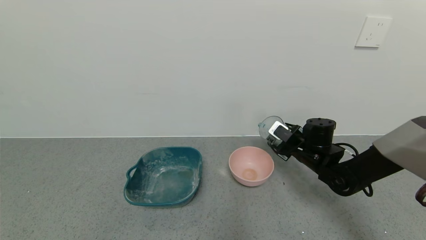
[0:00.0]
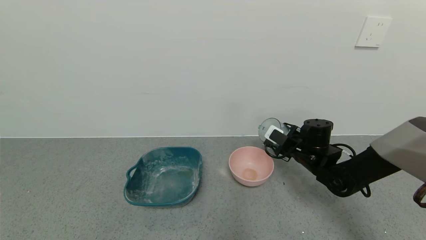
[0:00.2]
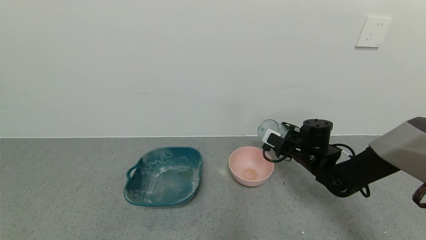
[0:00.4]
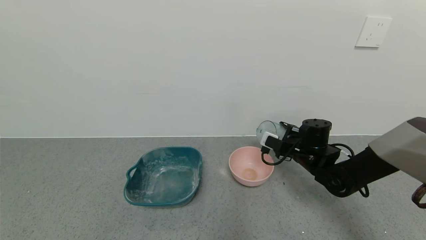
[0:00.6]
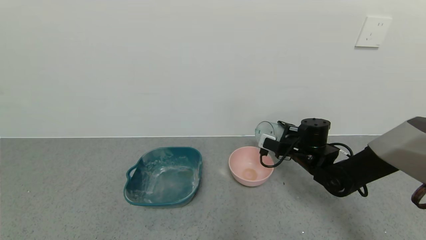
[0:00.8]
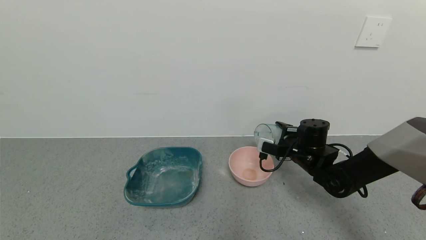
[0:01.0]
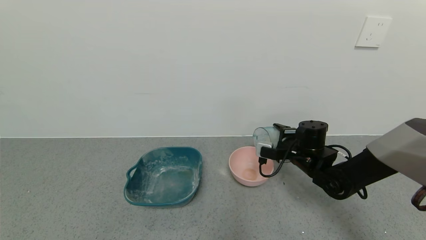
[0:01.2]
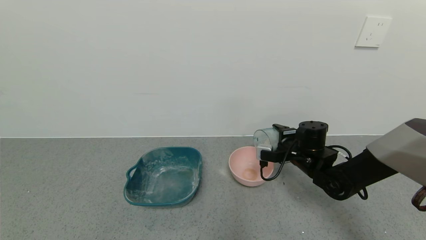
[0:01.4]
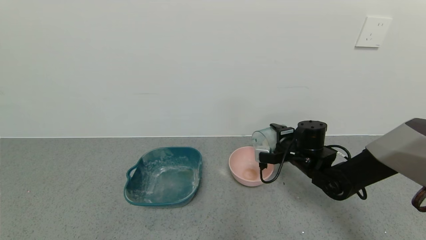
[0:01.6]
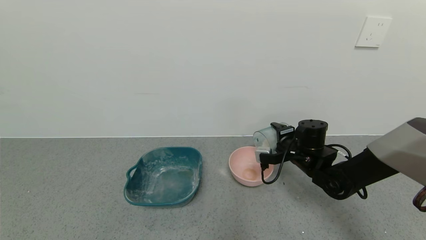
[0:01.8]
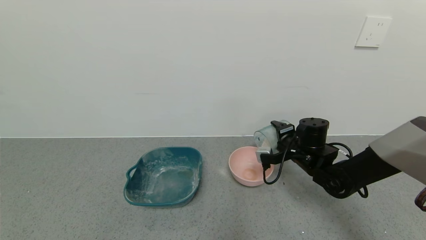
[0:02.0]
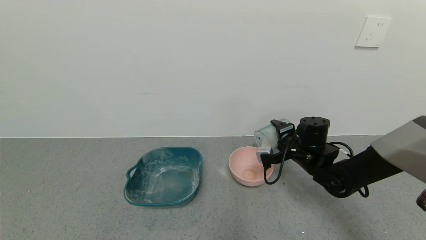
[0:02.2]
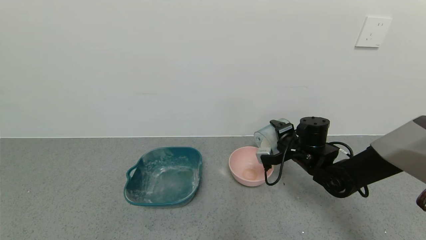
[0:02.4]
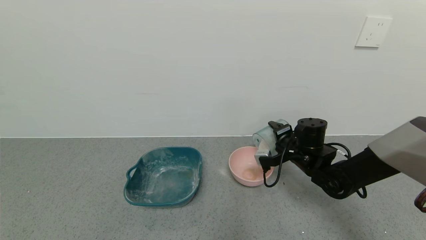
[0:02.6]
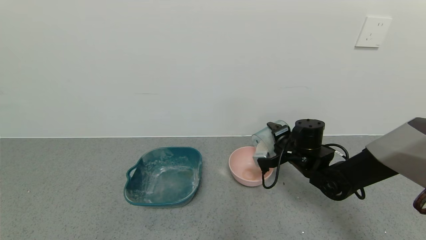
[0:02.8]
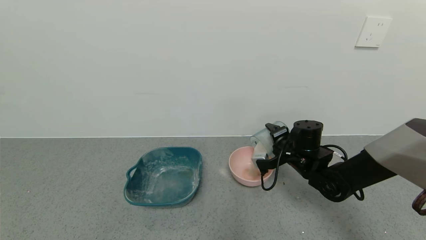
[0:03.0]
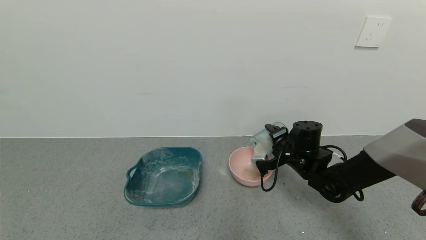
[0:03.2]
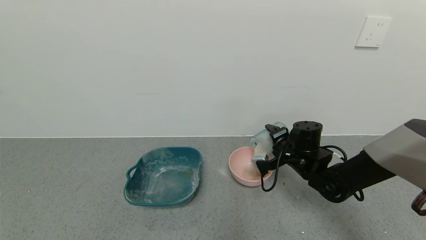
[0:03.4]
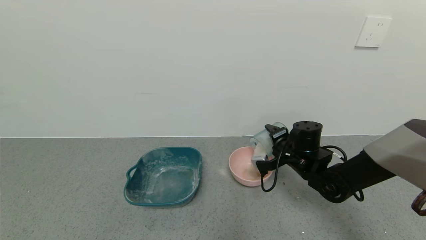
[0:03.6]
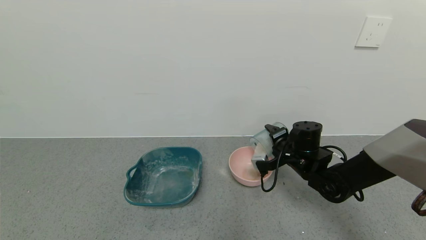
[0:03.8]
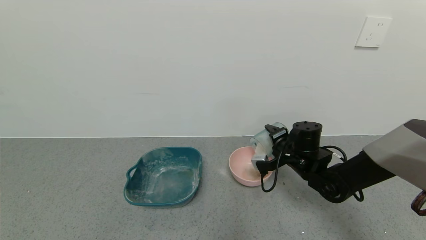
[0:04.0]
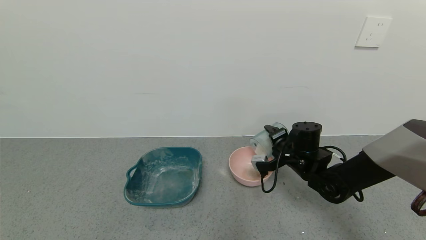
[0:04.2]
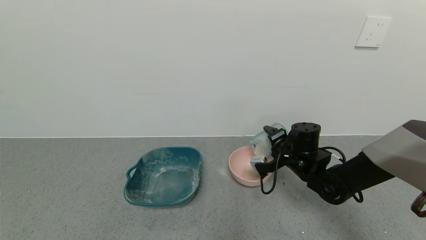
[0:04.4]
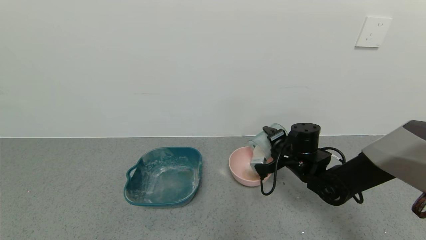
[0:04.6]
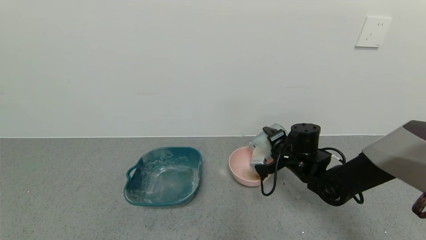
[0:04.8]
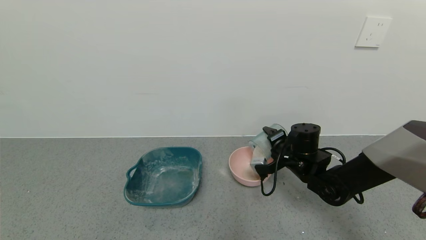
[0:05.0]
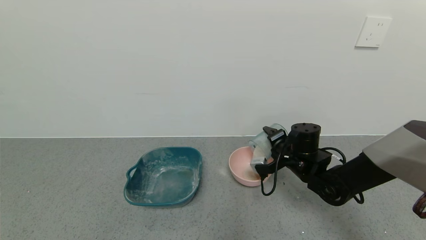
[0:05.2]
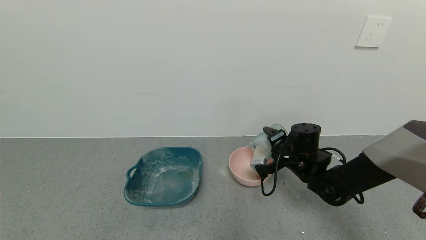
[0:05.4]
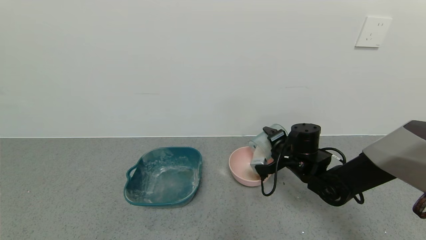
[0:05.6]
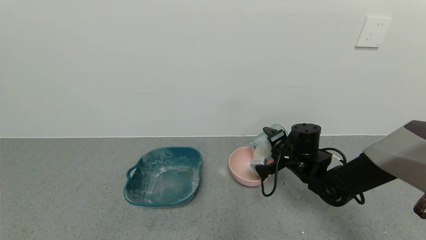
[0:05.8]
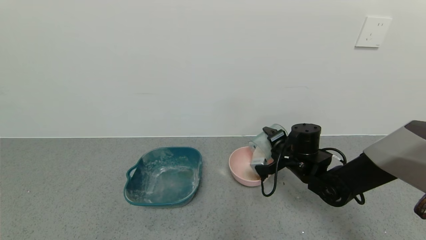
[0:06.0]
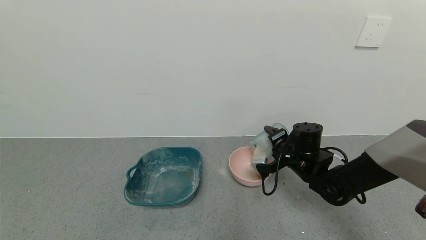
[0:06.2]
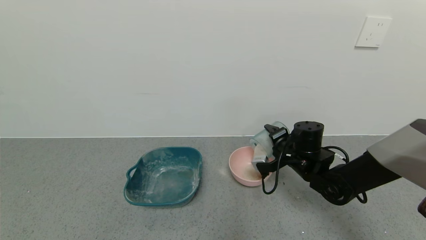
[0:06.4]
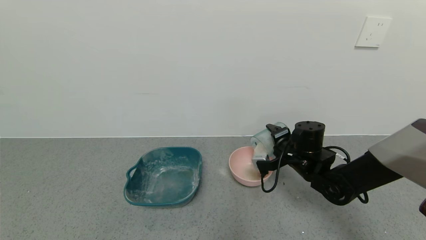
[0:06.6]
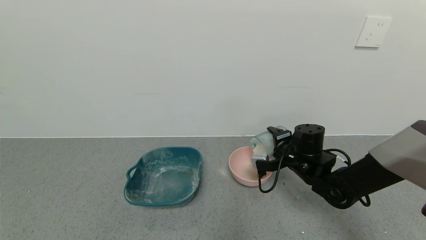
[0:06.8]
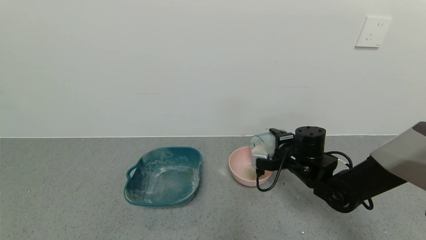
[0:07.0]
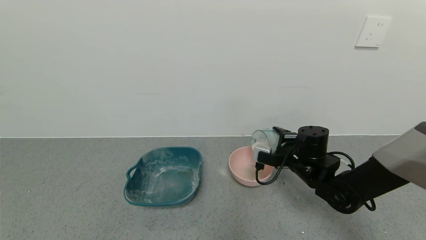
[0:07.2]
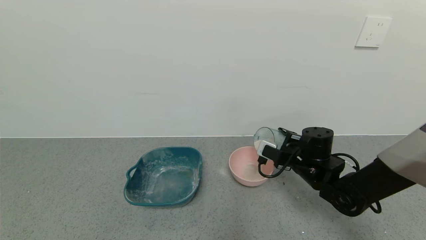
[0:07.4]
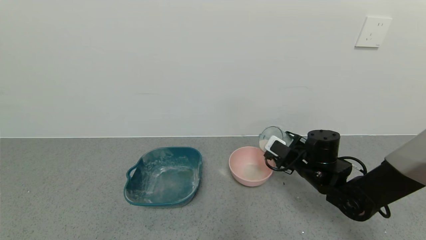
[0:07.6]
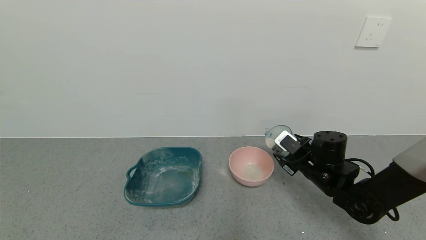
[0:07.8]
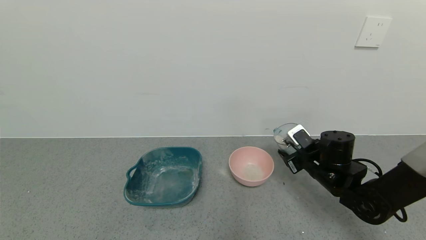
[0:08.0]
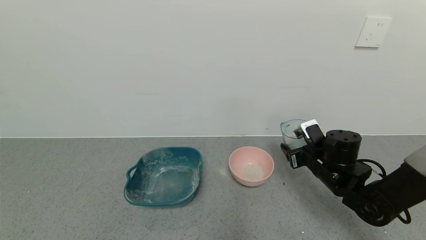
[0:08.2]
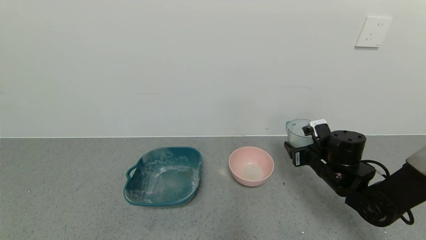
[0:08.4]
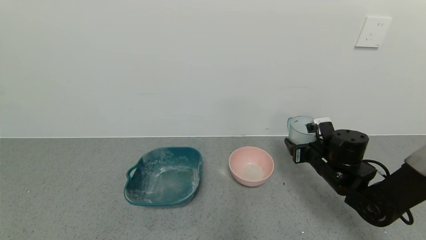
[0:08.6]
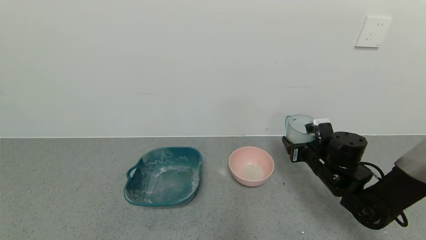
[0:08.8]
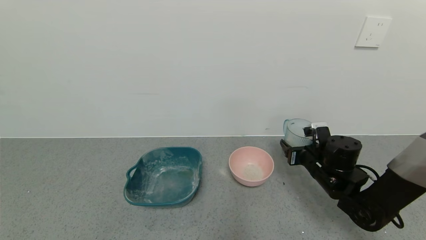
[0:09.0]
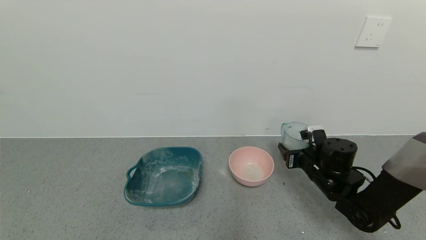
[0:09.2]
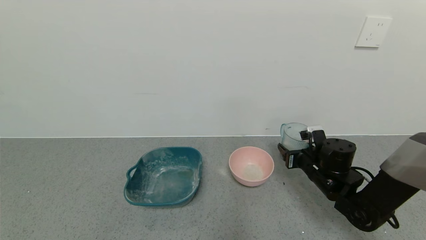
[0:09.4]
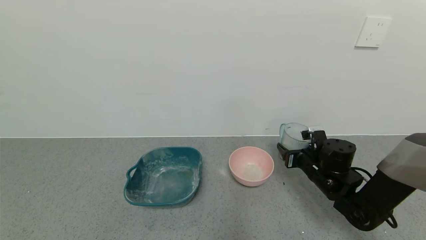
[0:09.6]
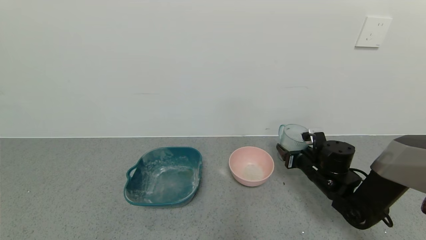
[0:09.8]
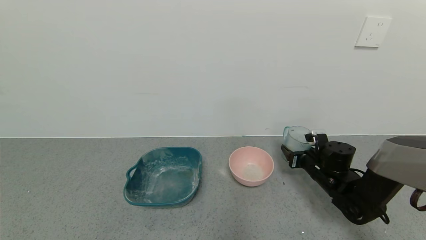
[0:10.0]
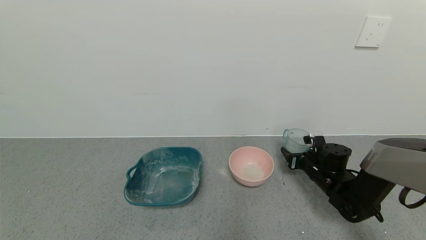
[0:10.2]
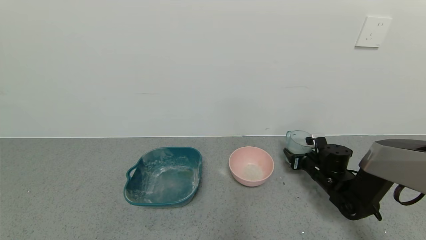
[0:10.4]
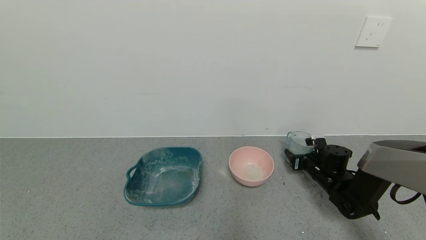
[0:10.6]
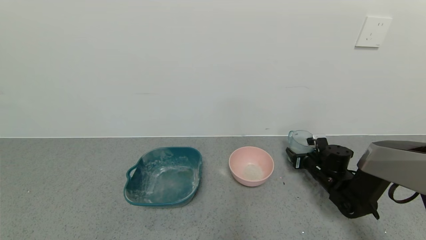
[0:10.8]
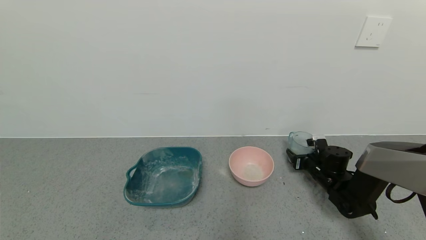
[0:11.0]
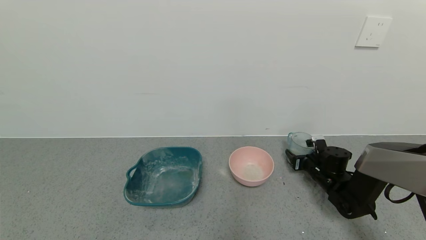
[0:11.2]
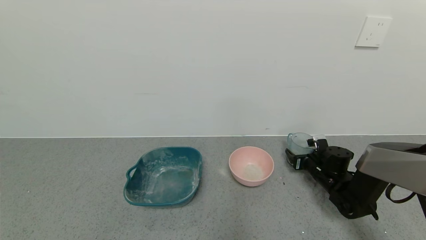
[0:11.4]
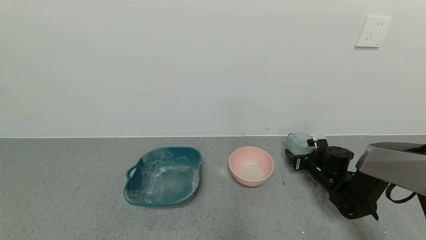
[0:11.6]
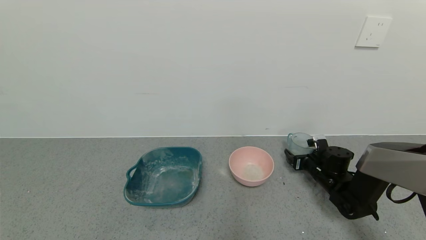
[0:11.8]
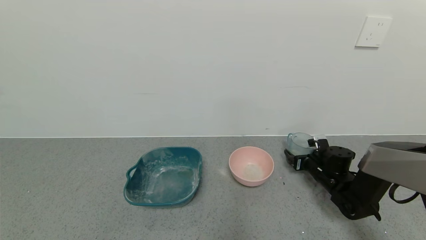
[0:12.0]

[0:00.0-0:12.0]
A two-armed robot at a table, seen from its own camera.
Task of the whole recording: use a gripper to pick up the cup and pour the powder into a bowl or tray.
Step, 0:00.0 to 0:06.6: Pour the powder into the pink bowl with the right gripper.
0:01.6 to 0:03.0: The grippers make only small movements.
0:03.0 to 0:06.0: Both grippers stay put.
0:09.0 to 0:10.4: The right gripper is displaced downward and forward by about 10 cm.
0:10.4 to 0:12.0: The right gripper opens up.

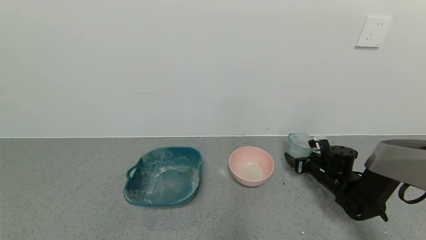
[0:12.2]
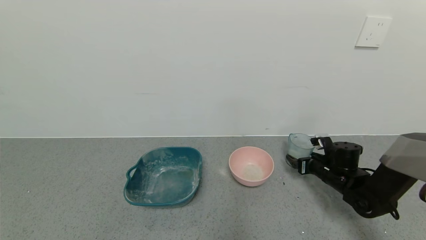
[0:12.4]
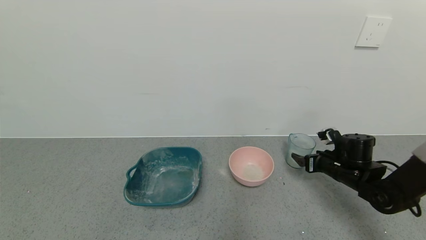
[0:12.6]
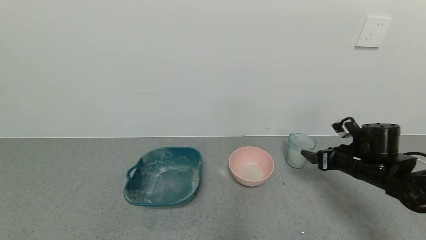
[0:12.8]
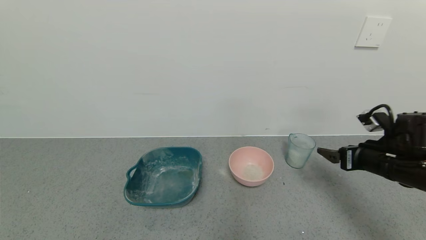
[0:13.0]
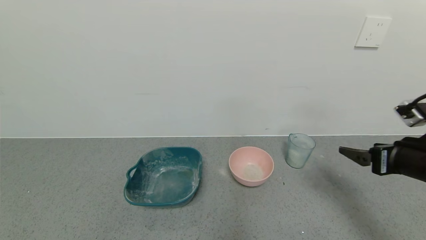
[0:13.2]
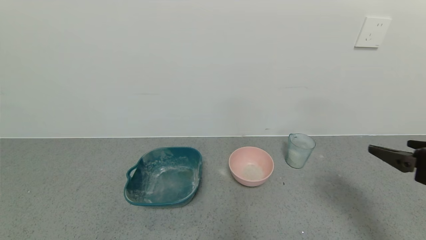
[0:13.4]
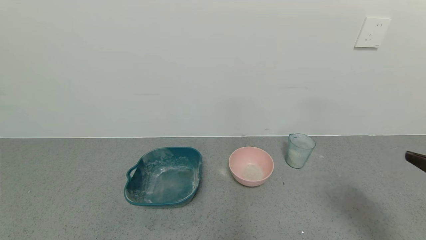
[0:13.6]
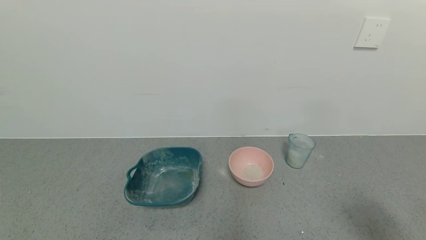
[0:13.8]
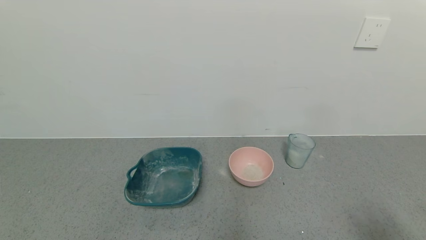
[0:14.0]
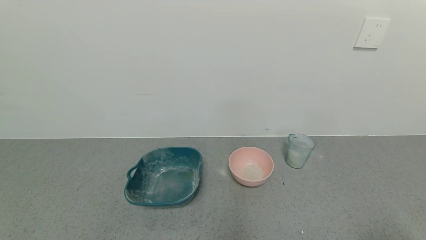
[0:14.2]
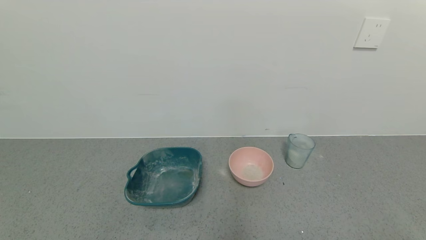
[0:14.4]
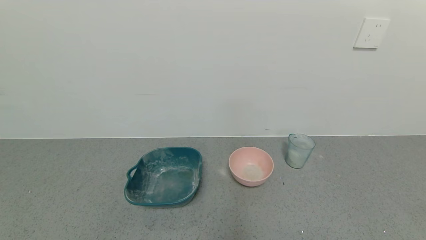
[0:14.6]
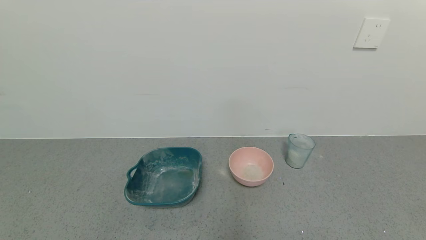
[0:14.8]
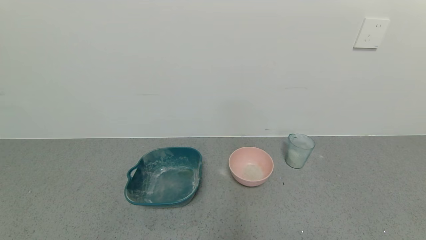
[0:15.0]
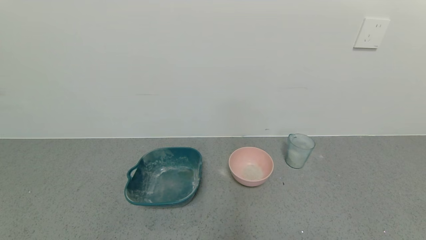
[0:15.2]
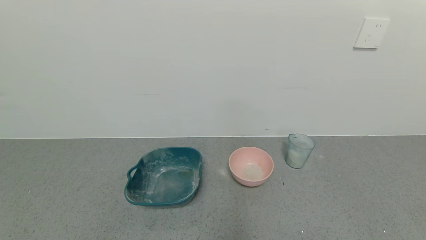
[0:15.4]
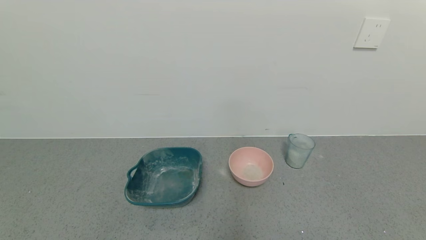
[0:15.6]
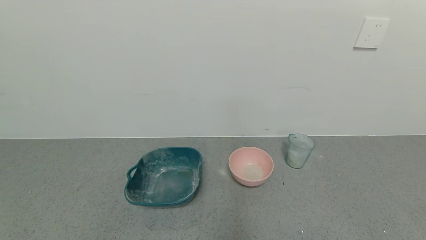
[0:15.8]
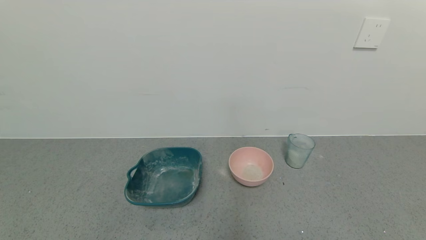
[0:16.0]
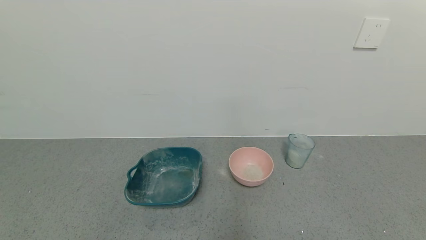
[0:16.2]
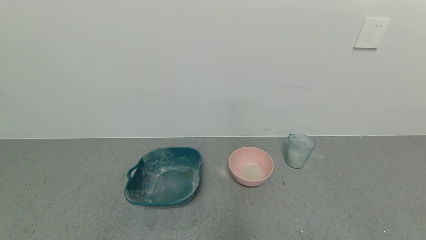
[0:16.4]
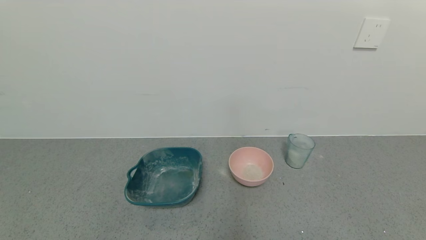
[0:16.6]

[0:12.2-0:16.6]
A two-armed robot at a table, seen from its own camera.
Task of the whole recording: use a gripper to pick up the cup and pour the powder into a bowl or tray.
0:12.2 to 0:13.6: The right gripper heads backward and upward, covering about 35 cm.
0:13.6 to 0:15.2: The right gripper travels backward and downward by approximately 20 cm.
